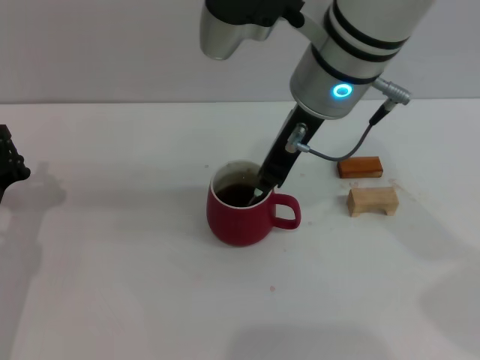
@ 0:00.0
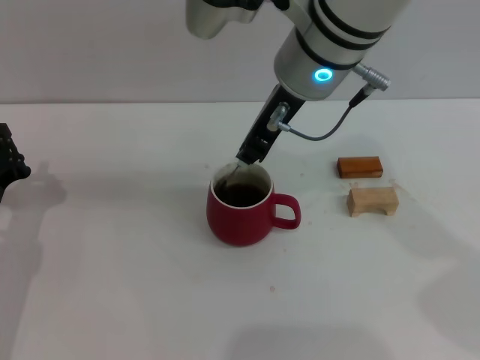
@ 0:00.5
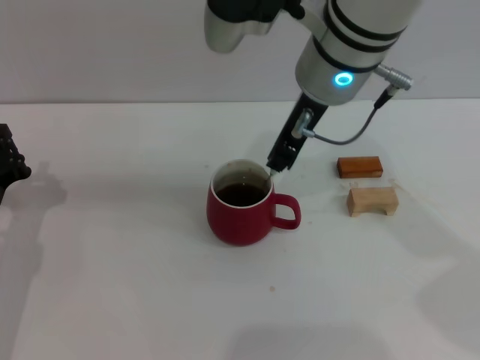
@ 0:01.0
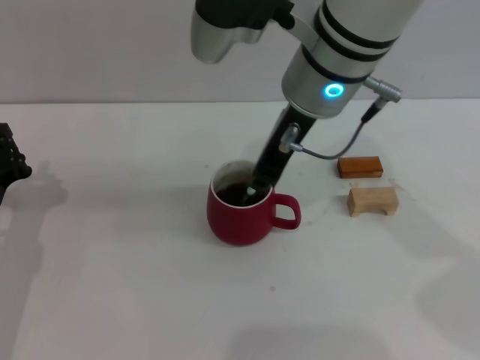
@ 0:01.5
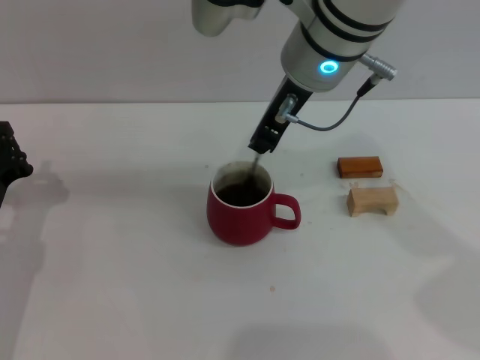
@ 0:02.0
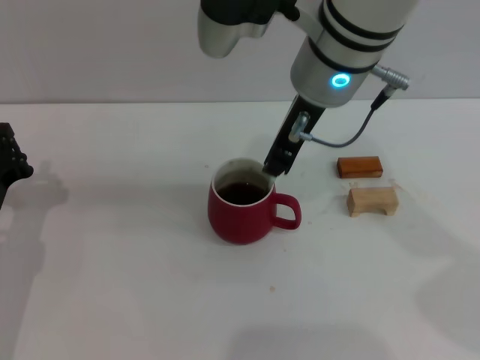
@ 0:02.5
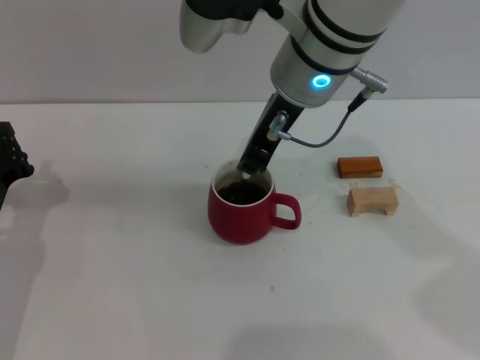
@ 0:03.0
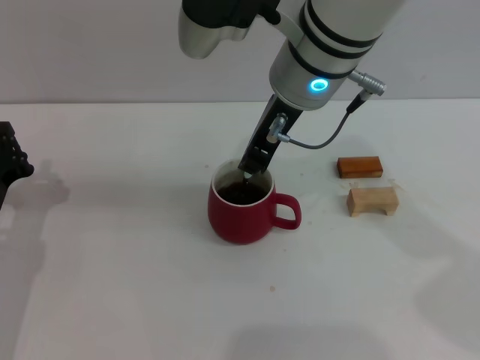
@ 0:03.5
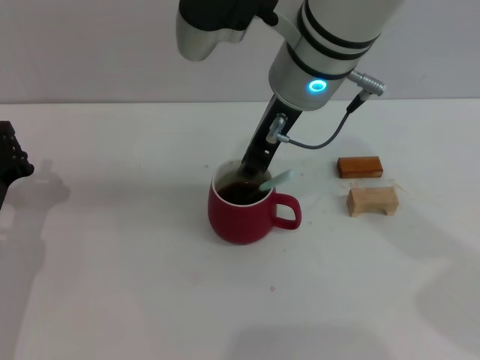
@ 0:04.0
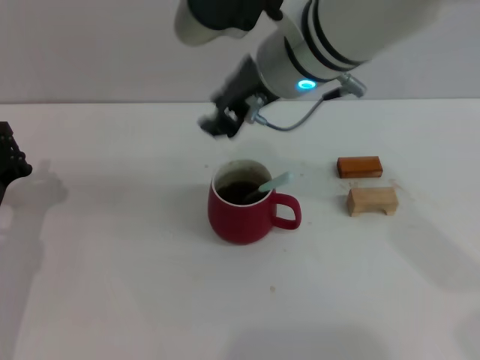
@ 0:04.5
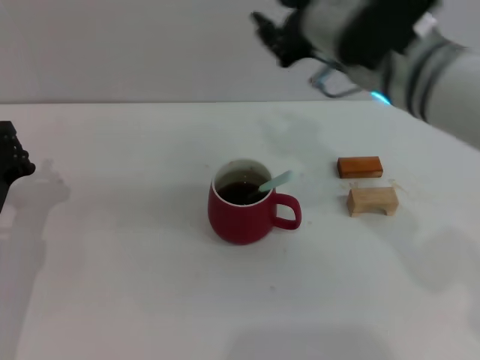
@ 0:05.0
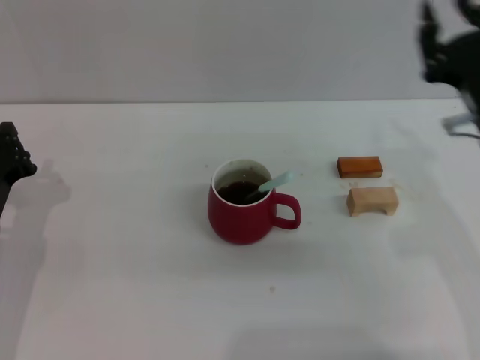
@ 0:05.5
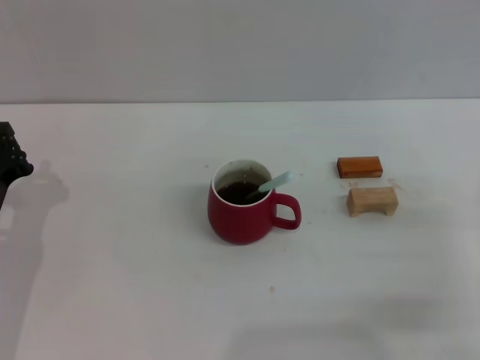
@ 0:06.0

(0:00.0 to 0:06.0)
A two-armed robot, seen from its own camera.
Task of the whole recording: Move the red cup to the center, lift the blue spoon, stir it three times in the cup, and put the spoon into the cup.
Step, 0:00.0 - 0:04.0: Stir the coffee in the cup with the right gripper.
0:00.0 - 0:04.0: The grippers move only a little.
0:04.0 - 0:06.0: The right gripper shifts roughly 35 cm to the right, downward and backward.
